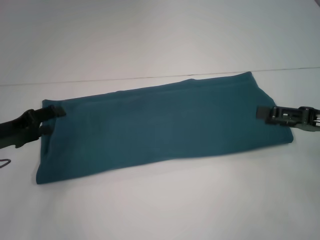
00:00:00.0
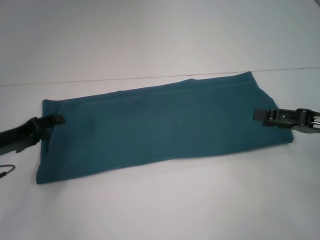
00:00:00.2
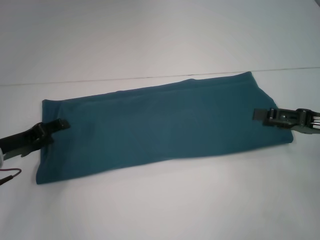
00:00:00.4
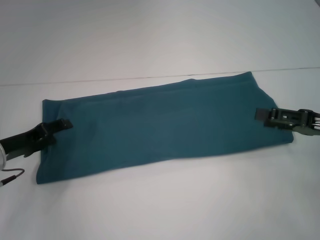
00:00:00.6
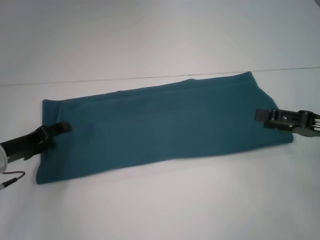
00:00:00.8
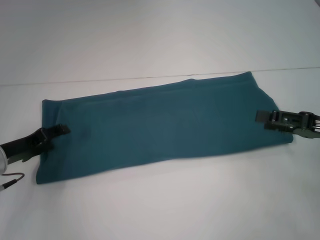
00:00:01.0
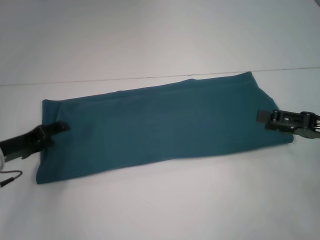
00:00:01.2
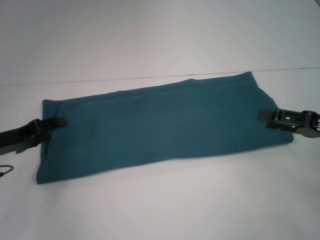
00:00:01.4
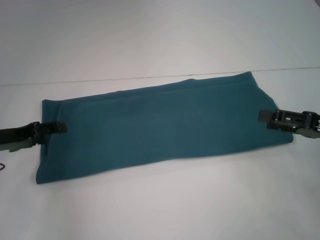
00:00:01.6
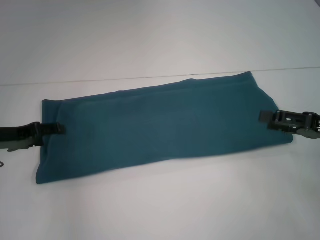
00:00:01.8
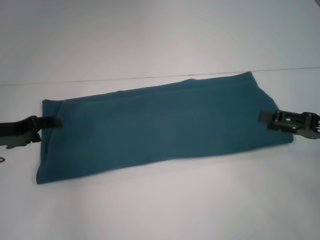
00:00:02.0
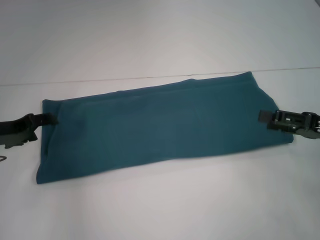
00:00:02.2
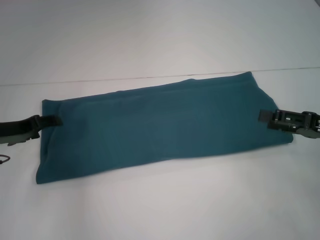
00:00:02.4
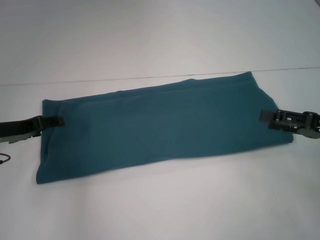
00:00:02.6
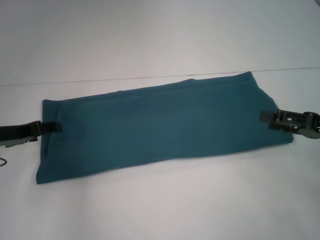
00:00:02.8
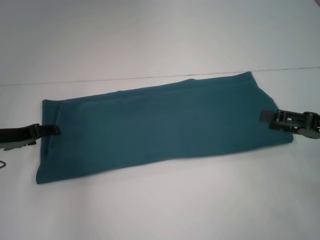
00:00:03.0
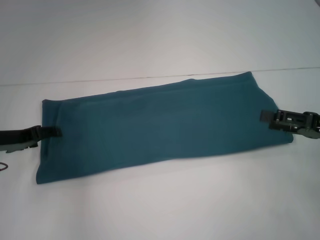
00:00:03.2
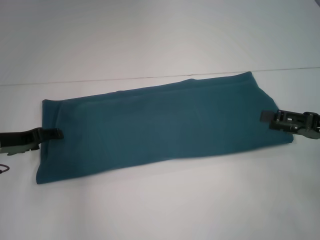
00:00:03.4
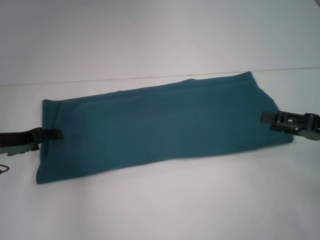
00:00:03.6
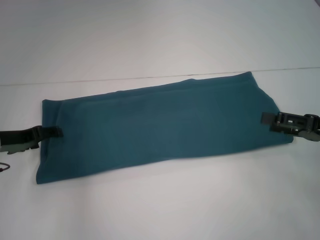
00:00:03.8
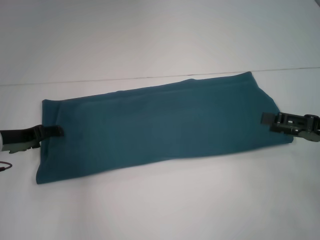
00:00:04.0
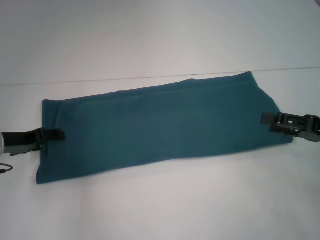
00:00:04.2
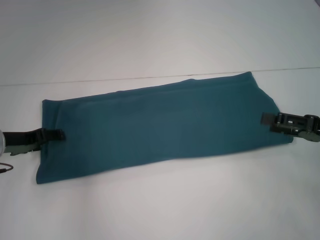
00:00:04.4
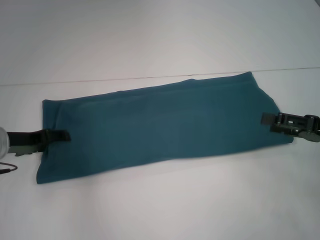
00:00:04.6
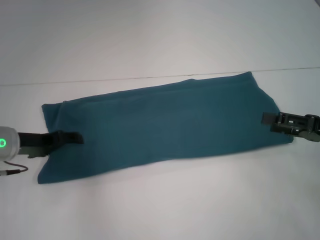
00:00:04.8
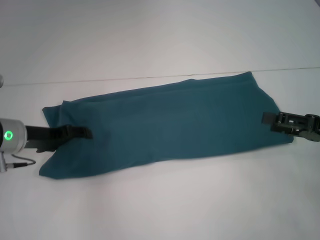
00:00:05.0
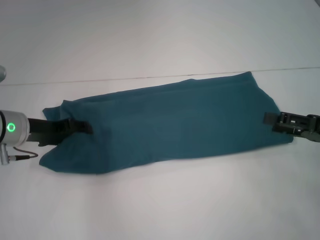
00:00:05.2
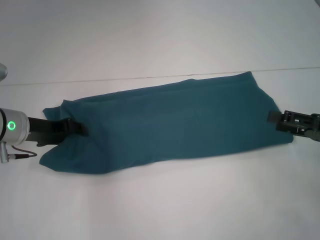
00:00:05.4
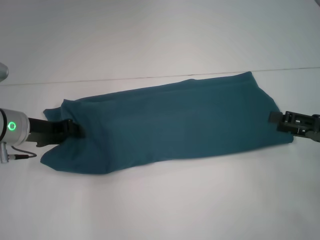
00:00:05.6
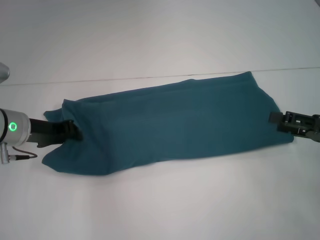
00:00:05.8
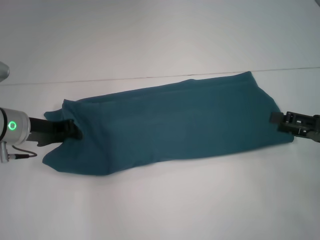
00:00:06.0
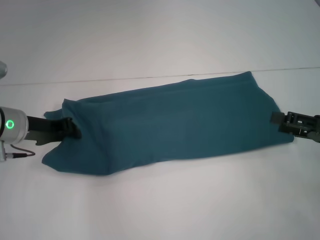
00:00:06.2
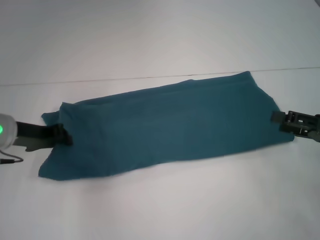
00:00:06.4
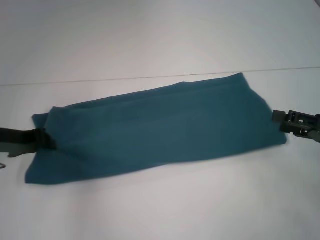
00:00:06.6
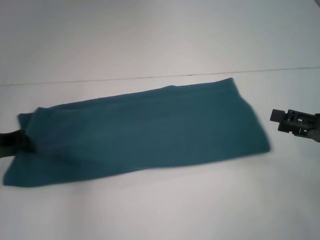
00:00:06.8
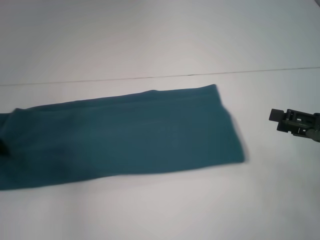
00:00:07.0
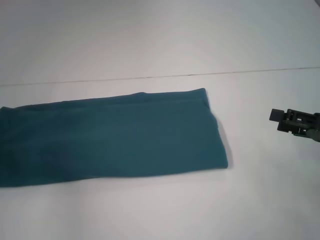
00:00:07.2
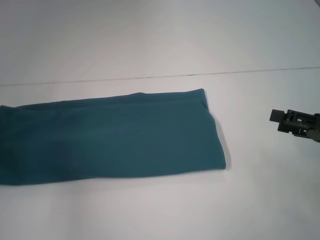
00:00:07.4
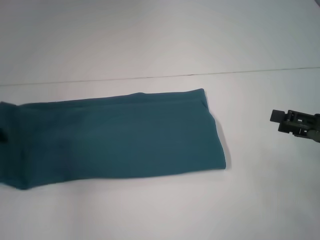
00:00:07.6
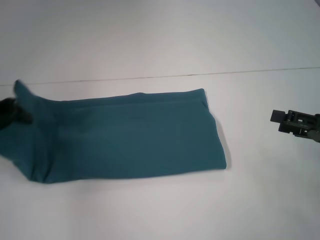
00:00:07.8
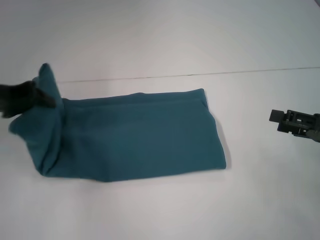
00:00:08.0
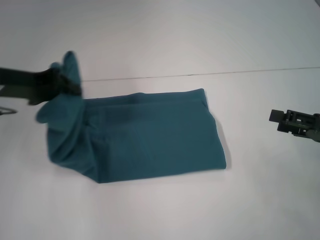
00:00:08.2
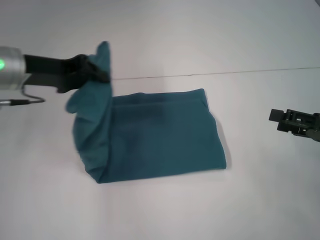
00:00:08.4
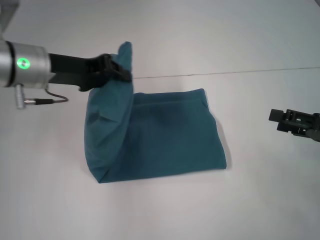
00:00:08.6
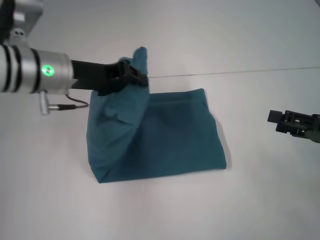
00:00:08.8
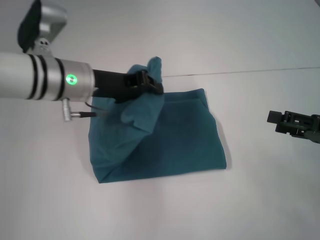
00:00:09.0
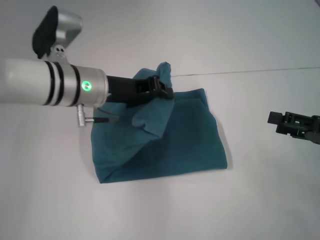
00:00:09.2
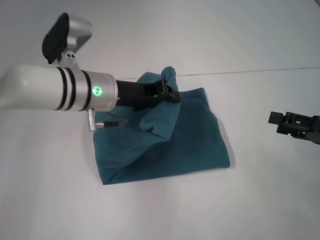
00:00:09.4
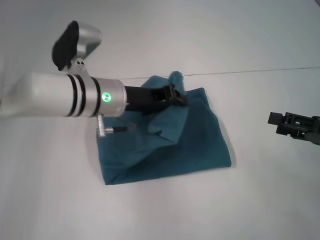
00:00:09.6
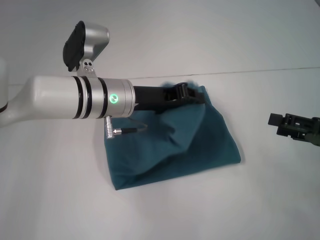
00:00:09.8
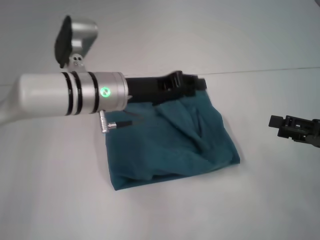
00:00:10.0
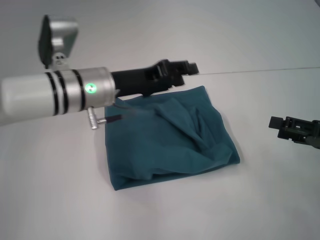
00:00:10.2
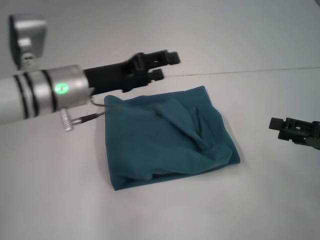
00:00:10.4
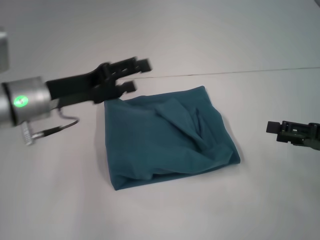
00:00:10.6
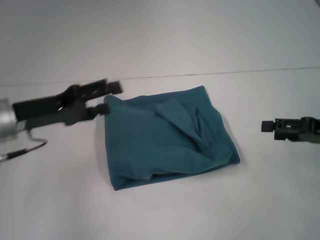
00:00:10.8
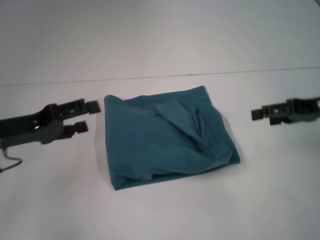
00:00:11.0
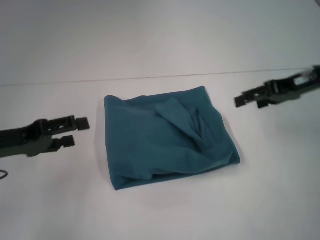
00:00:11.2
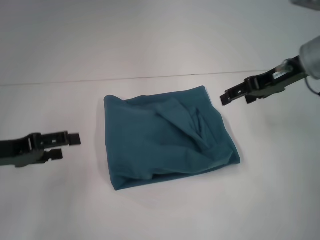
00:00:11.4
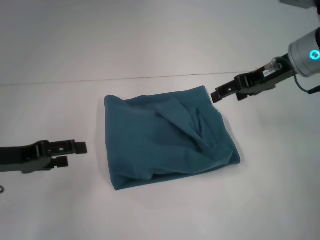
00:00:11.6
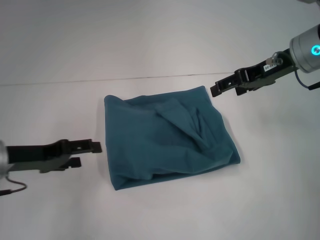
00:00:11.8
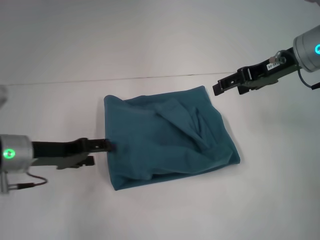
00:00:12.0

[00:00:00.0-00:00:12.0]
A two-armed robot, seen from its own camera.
Step, 00:00:00.0 to 00:00:10.0: Fold the clothes to the left.
00:00:00.0 to 00:00:01.6: The grippers stay close to where they were, moving slightly.
00:00:03.0 to 00:00:04.4: The two grippers keep their place.
00:00:04.4 to 00:00:06.0: The left gripper ends up approximately 5 cm from where it was, and closes its fingers.
00:00:06.0 to 00:00:07.6: The left gripper heads to the left, covering roughly 10 cm.
00:00:07.6 to 00:00:09.0: The left gripper moves to the right, some 20 cm.
00:00:09.0 to 00:00:10.4: The left gripper opens its fingers.
00:00:10.4 to 00:00:12.0: The left gripper shifts approximately 10 cm to the left and downward, and opens its fingers, while the right gripper travels forward, to the left and upward by some 20 cm.

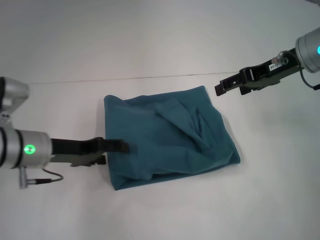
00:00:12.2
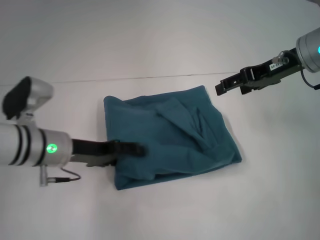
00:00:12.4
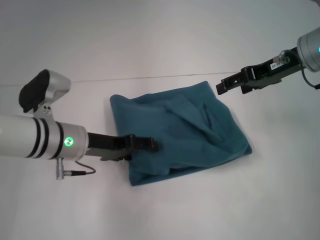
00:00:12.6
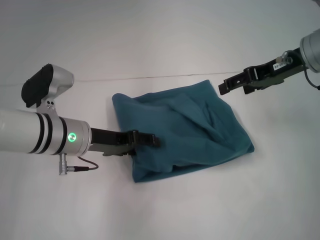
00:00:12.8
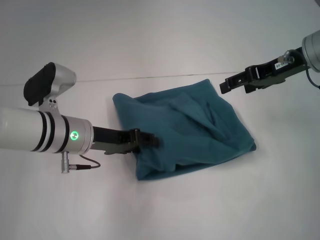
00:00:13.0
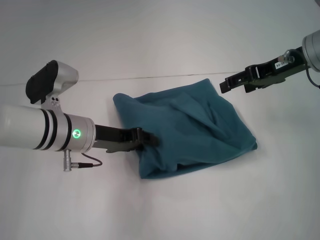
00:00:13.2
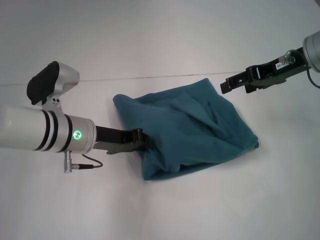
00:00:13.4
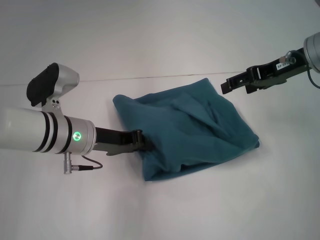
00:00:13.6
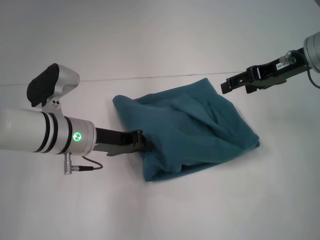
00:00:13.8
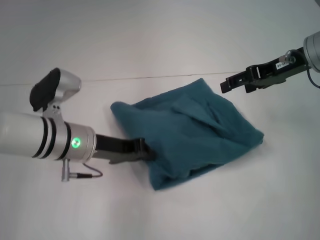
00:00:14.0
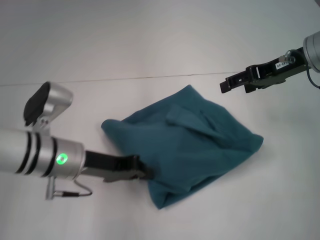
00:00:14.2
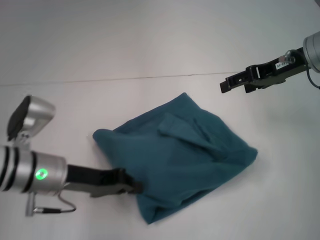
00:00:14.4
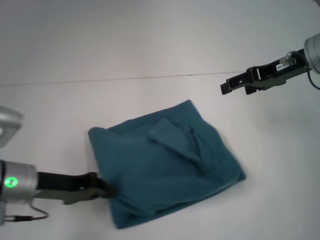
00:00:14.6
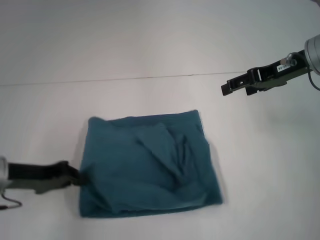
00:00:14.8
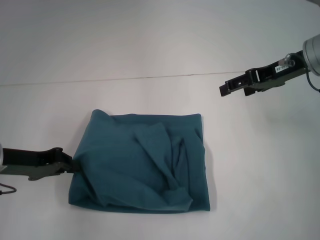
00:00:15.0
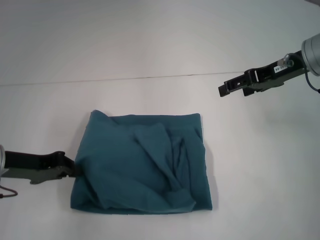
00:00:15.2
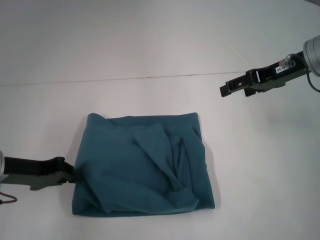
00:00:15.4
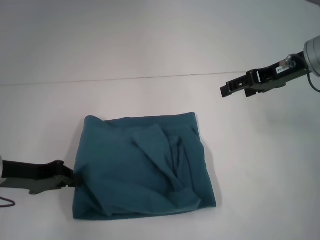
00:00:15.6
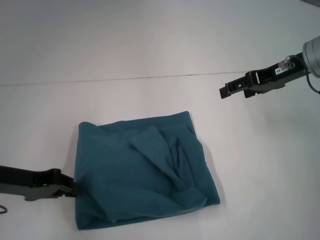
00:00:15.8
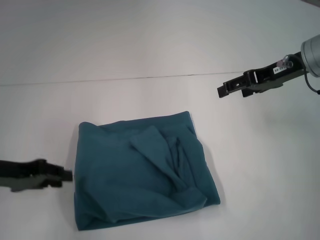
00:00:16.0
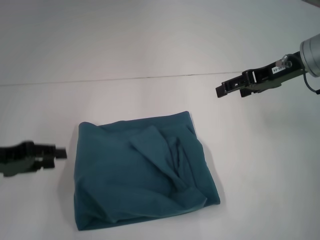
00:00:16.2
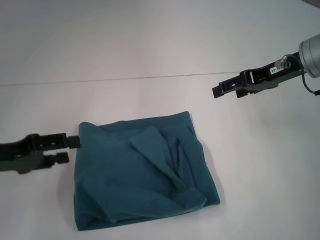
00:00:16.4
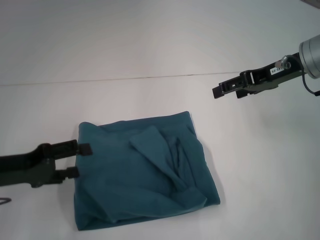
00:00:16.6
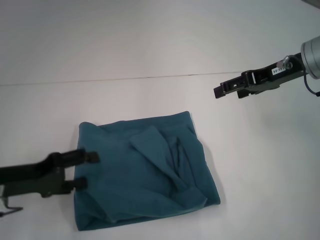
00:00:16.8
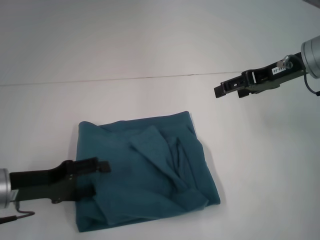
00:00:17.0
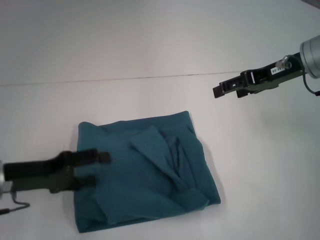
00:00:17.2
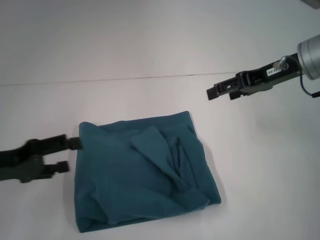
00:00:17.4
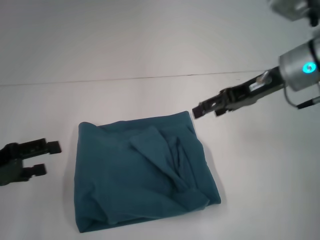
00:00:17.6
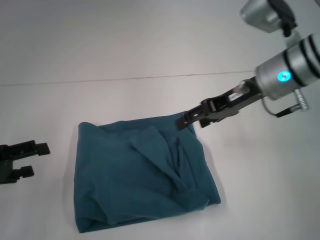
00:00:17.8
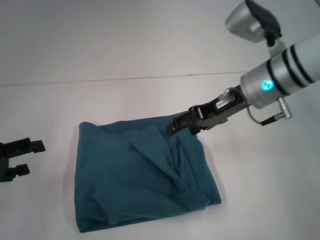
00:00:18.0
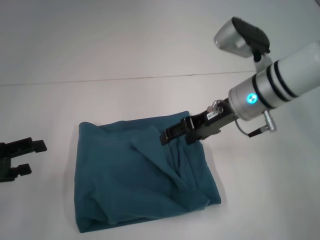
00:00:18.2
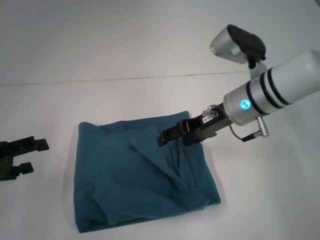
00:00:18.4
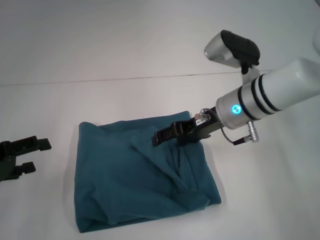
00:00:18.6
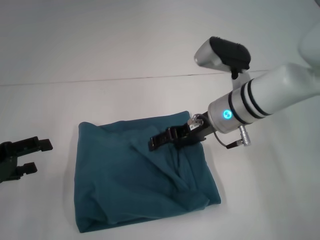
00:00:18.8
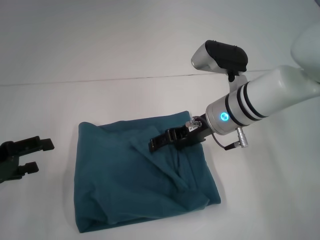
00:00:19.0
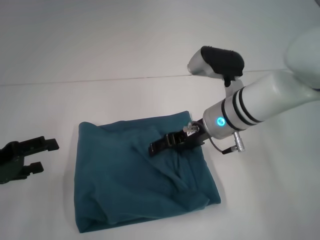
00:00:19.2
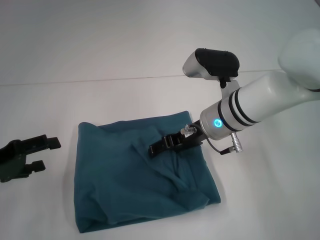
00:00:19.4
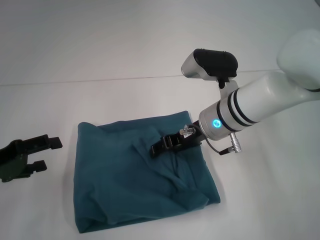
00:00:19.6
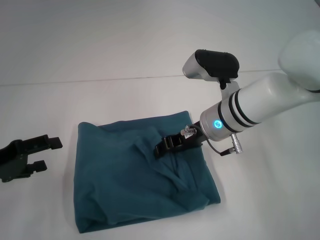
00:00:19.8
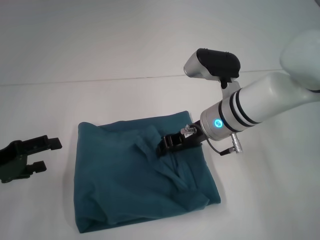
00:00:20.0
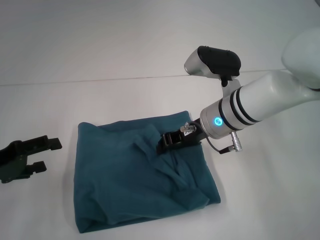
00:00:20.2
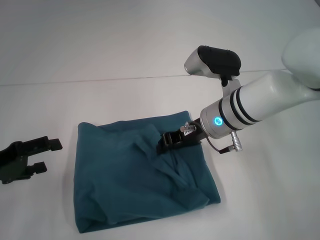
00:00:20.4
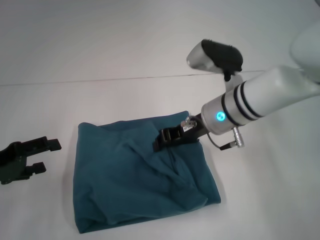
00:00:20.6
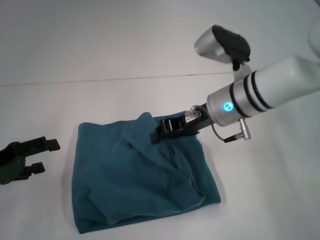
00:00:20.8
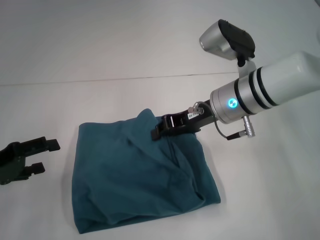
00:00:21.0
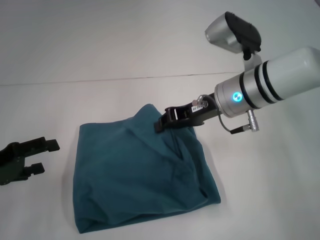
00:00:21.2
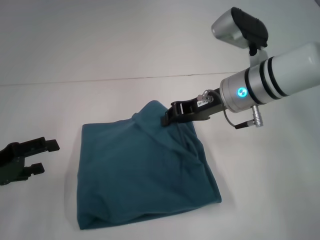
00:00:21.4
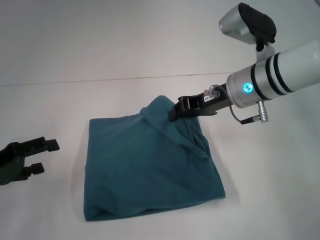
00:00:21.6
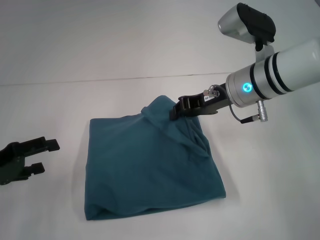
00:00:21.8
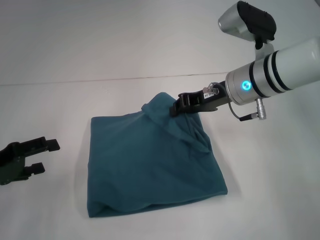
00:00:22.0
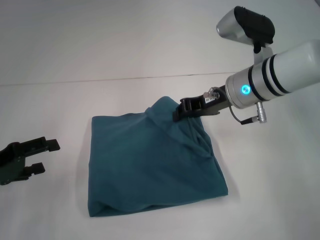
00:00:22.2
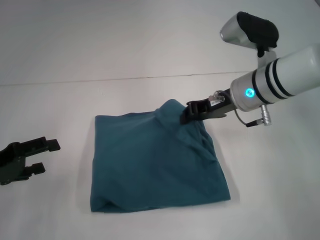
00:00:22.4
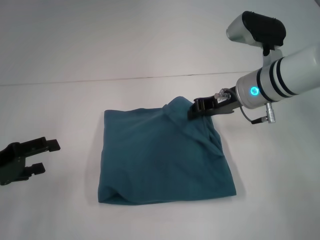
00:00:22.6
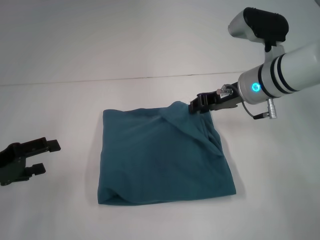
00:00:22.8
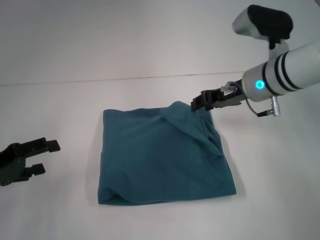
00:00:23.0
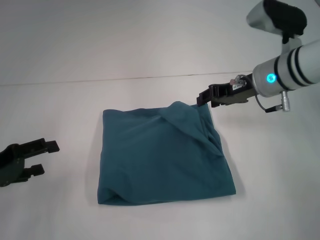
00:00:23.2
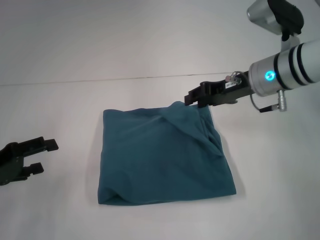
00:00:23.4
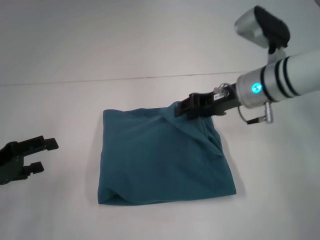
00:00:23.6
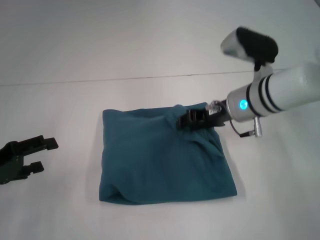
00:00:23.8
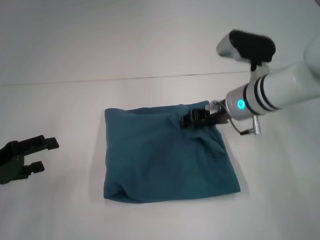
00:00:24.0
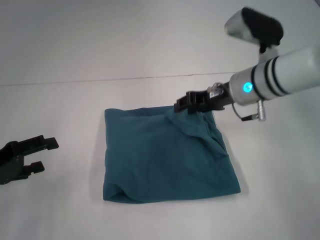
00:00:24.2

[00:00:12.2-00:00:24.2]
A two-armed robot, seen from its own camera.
00:00:12.2 to 00:00:13.8: The left gripper shifts about 5 cm to the right, and closes its fingers.
00:00:13.8 to 00:00:15.2: The left gripper shifts approximately 10 cm to the left.
00:00:15.2 to 00:00:16.6: The left gripper opens up.
00:00:16.6 to 00:00:18.2: The right gripper shifts about 10 cm to the left and downward. The left gripper travels to the left by roughly 5 cm.
00:00:18.2 to 00:00:19.8: The right gripper moves about 5 cm, and closes its fingers.
00:00:19.8 to 00:00:21.2: The right gripper changes place by roughly 5 cm, and closes its fingers.
00:00:22.6 to 00:00:24.2: The grippers stay close to where they were, moving slightly.
